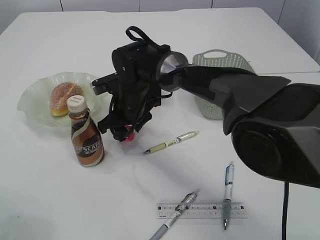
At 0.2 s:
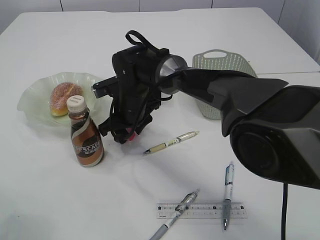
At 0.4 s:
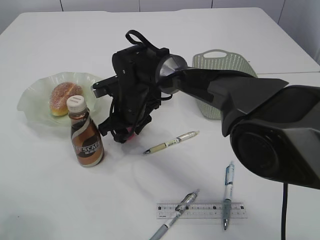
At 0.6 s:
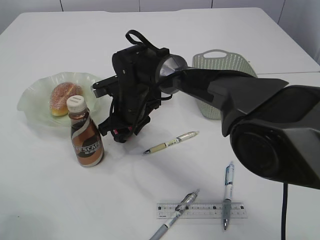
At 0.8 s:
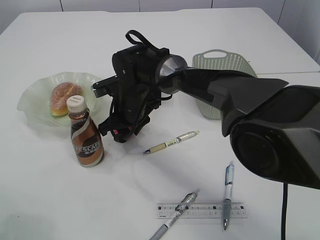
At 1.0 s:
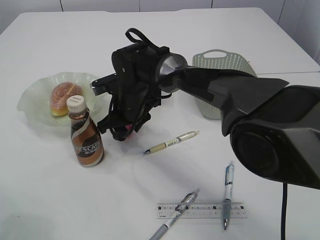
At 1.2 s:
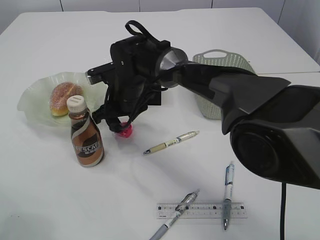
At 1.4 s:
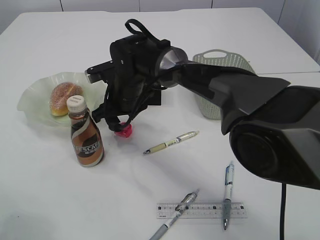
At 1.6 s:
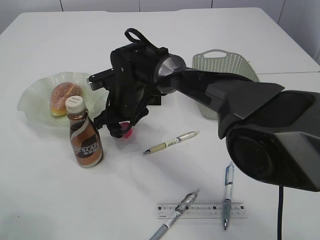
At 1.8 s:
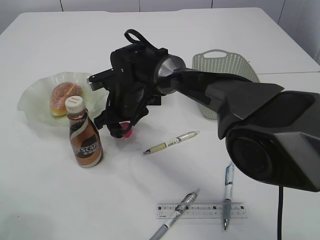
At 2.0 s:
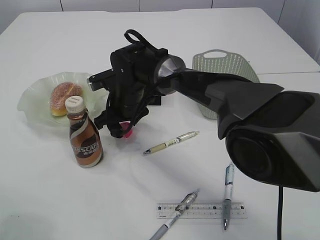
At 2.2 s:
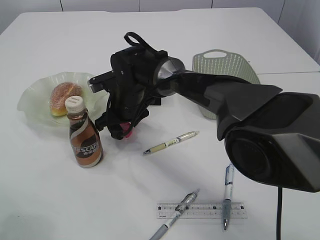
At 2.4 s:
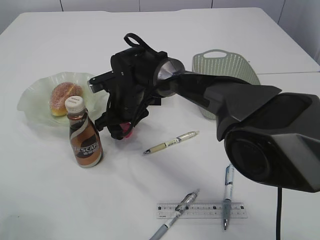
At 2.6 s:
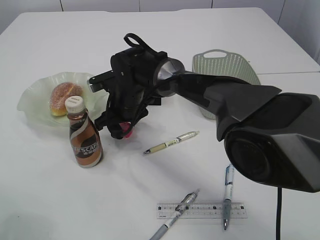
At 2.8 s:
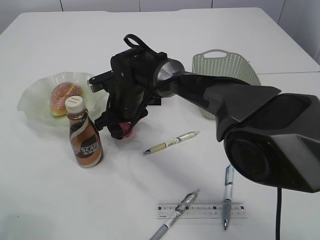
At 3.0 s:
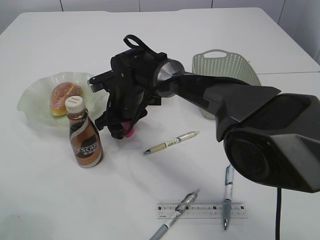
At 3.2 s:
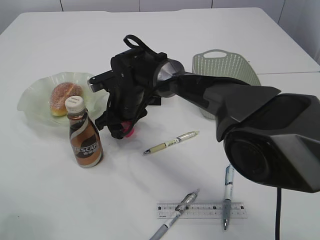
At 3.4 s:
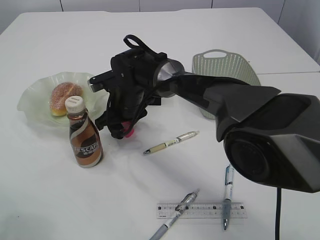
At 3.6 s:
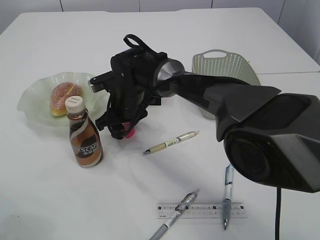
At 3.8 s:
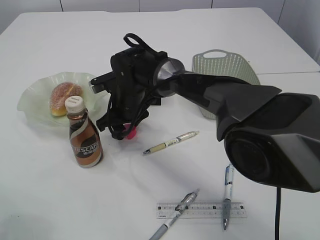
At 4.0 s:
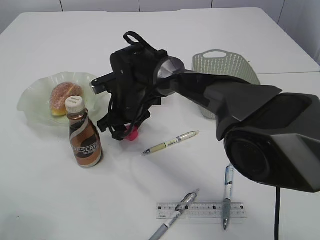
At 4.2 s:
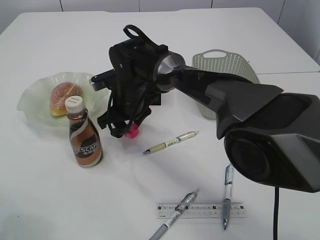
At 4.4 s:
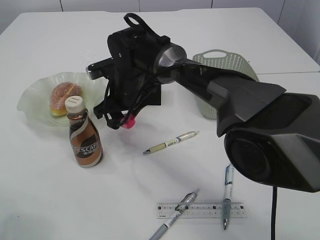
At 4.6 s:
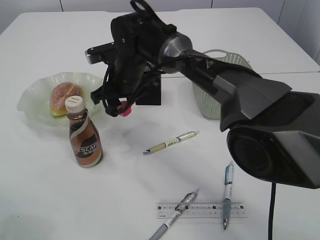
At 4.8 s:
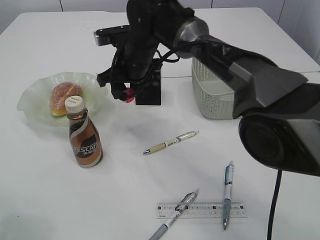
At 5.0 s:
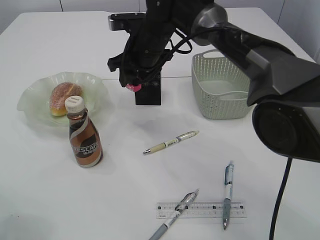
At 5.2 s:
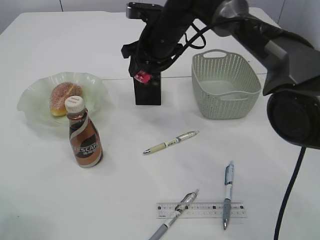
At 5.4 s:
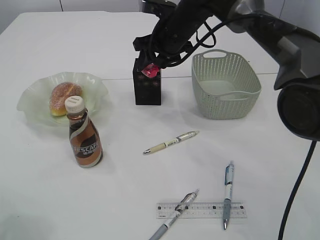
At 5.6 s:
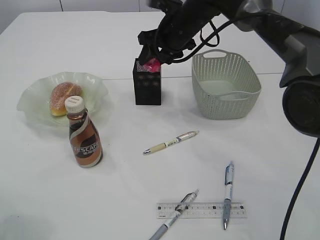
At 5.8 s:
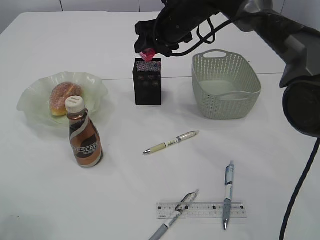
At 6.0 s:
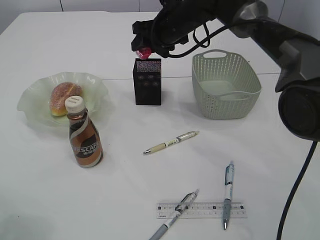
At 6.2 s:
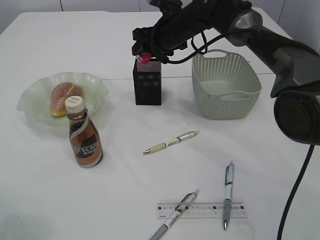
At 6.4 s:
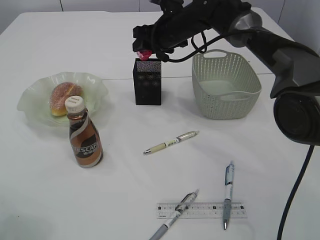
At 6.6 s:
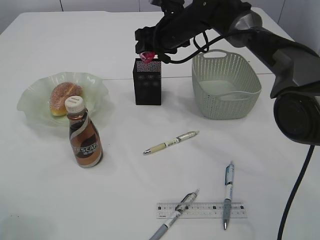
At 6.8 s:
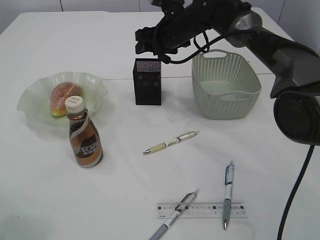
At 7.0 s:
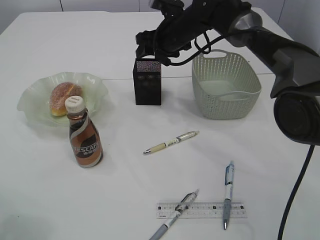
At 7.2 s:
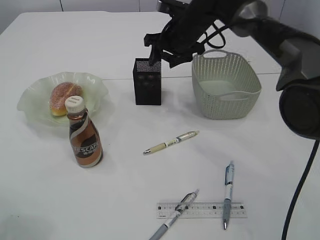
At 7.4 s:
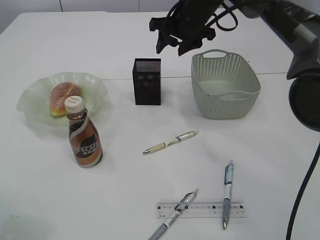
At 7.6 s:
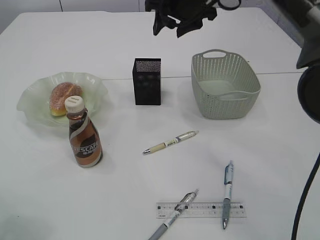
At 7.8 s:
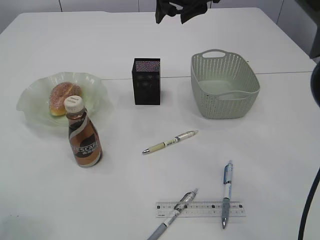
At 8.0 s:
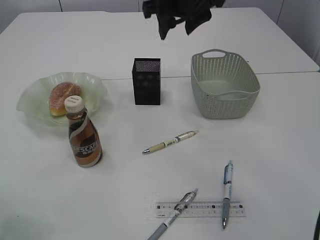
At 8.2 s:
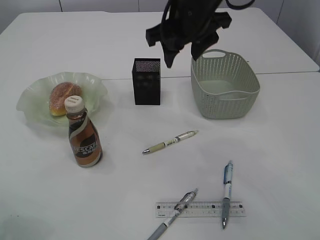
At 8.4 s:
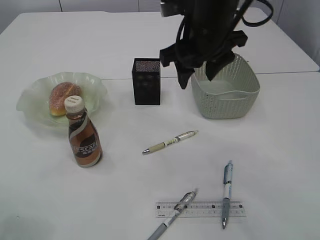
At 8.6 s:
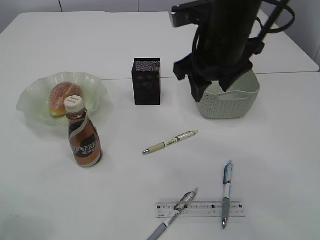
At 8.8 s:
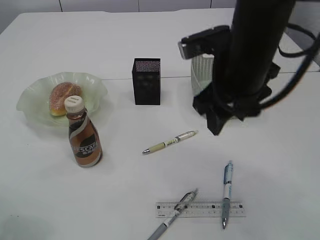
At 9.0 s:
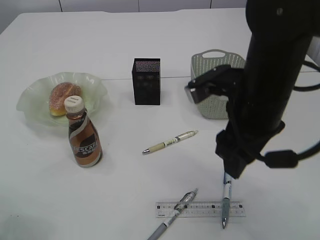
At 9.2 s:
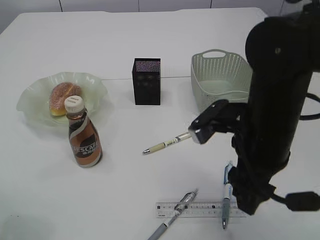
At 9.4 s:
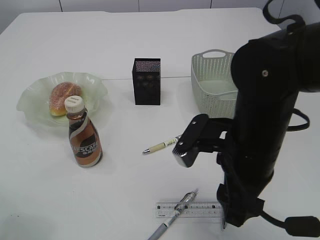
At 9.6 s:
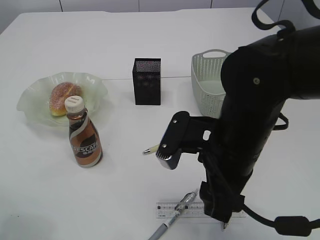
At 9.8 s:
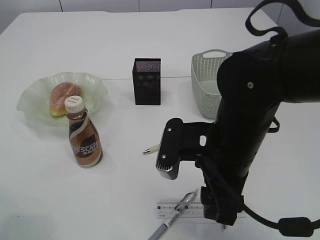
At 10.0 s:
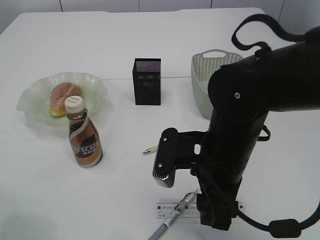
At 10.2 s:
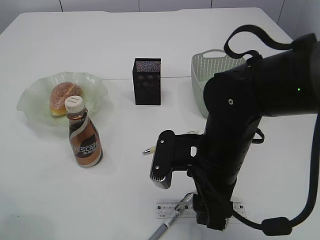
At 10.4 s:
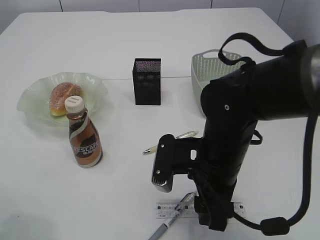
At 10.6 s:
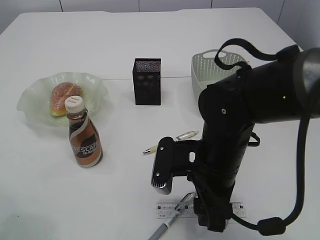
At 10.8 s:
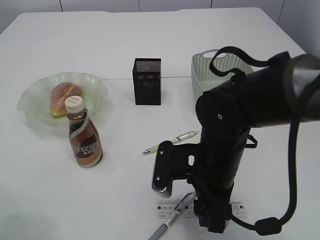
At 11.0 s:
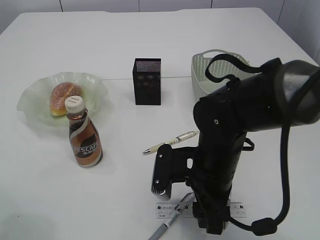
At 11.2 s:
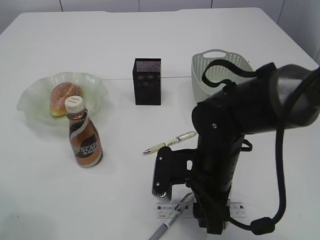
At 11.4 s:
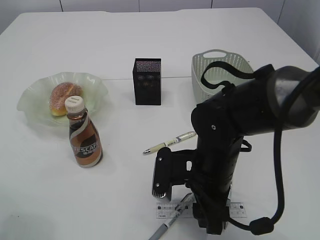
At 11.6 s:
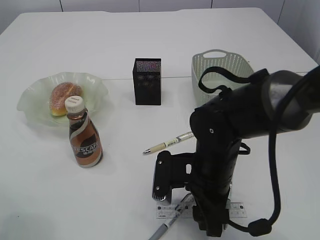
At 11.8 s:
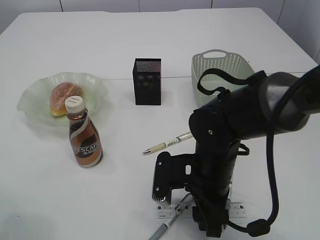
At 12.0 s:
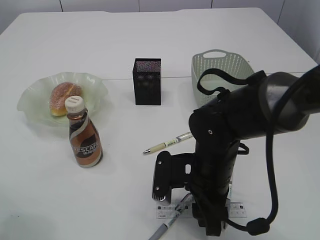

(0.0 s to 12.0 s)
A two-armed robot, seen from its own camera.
Step, 0.0 s - 4.6 s: Pick up the red pencil sharpener.
Step, 4.8 s - 7.2 s: Place the red pencil sharpener into the pen holder.
0.0 s - 1.6 s: The grippers move only a little.
1.6 s - 3.0 s: Both grippers stay about where they are.
3.0 s - 4.4 s: The grippers move only a little.
4.4 s - 6.0 s: The right gripper moves to the right, upward and forward, approximately 15 cm.
6.0 s - 7.6 s: The right gripper moves upward, approximately 5 cm.
7.6 s - 9.0 s: The right gripper heads backward, covering approximately 20 cm.
9.0 s - 10.4 s: The right gripper shifts roughly 10 cm downward.
10.4 s - 12.0 s: There are only small adjustments of the grippers.

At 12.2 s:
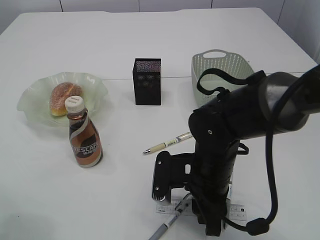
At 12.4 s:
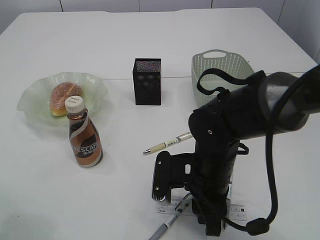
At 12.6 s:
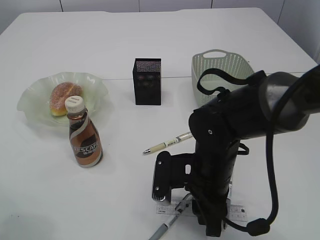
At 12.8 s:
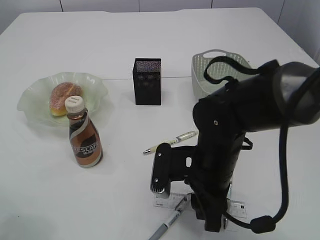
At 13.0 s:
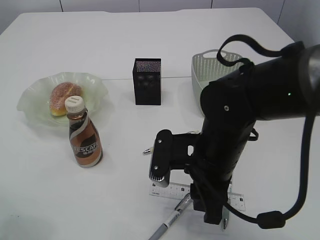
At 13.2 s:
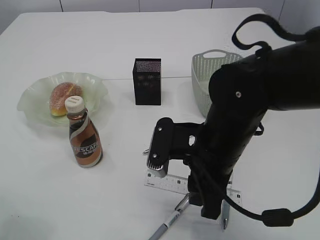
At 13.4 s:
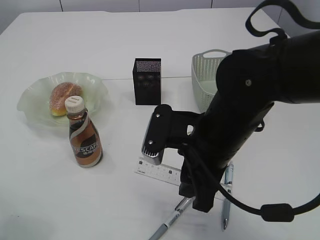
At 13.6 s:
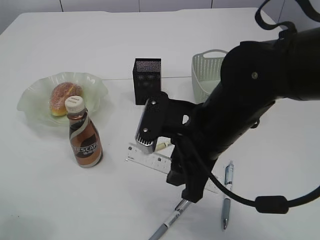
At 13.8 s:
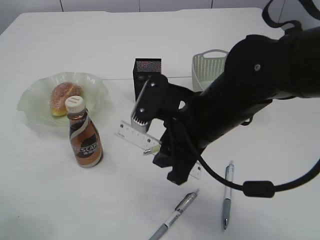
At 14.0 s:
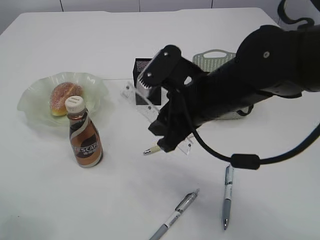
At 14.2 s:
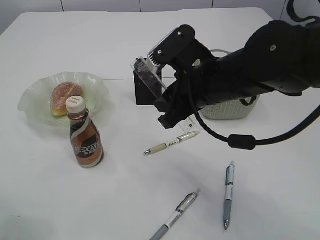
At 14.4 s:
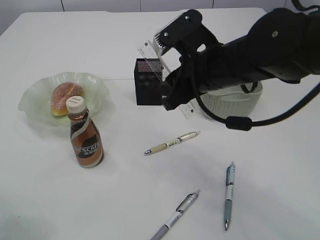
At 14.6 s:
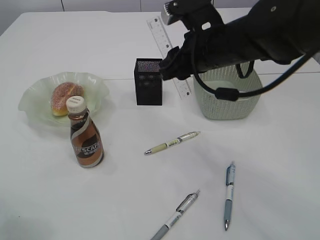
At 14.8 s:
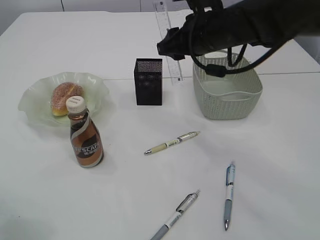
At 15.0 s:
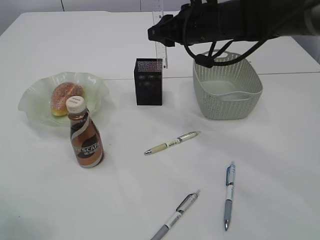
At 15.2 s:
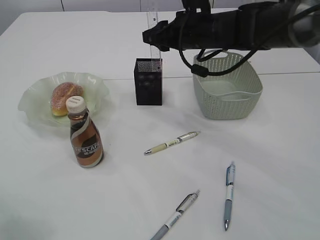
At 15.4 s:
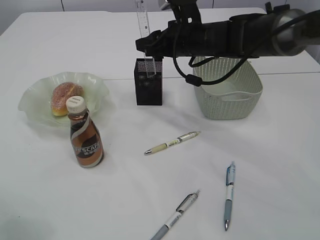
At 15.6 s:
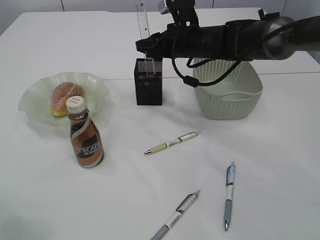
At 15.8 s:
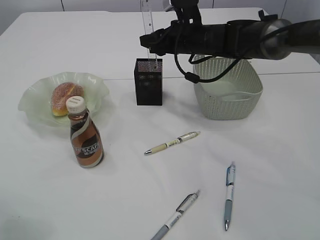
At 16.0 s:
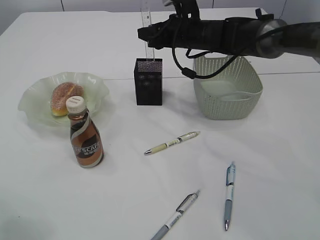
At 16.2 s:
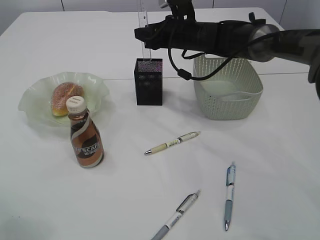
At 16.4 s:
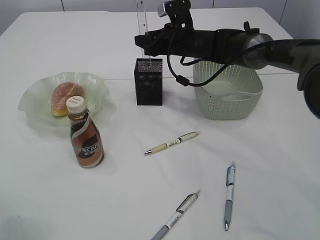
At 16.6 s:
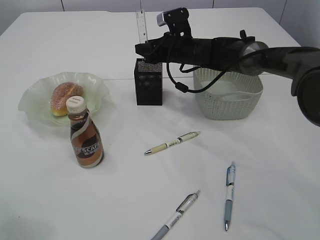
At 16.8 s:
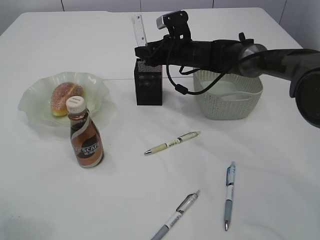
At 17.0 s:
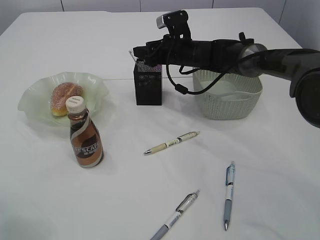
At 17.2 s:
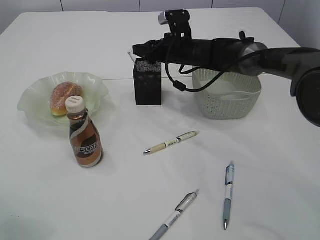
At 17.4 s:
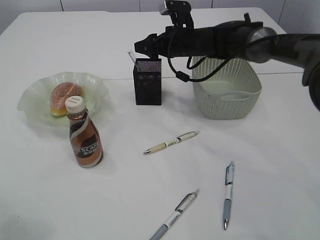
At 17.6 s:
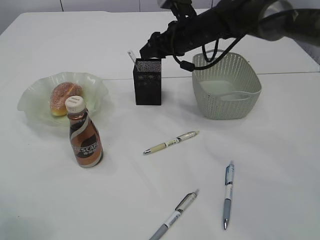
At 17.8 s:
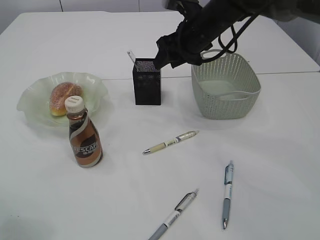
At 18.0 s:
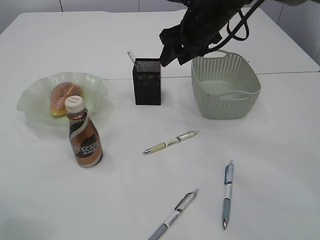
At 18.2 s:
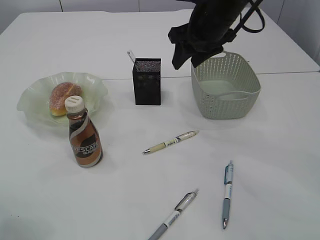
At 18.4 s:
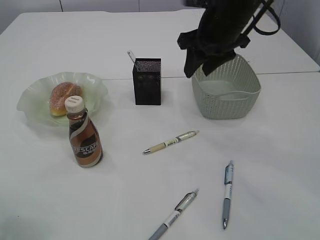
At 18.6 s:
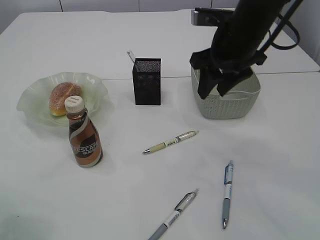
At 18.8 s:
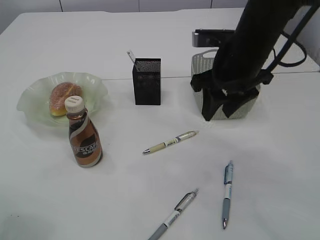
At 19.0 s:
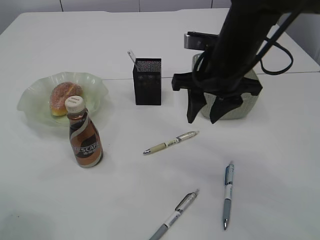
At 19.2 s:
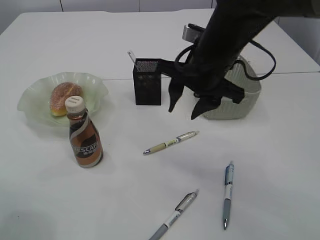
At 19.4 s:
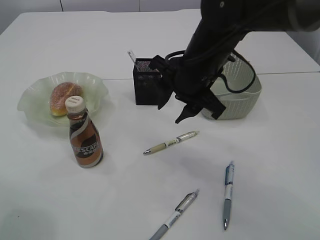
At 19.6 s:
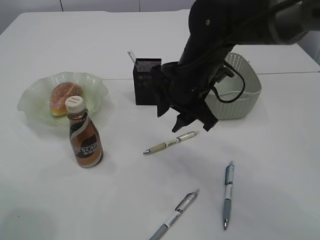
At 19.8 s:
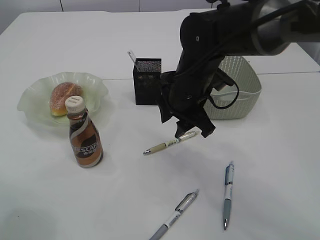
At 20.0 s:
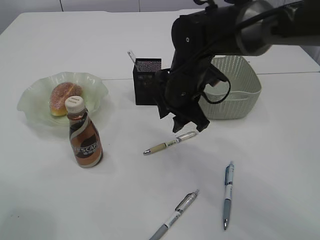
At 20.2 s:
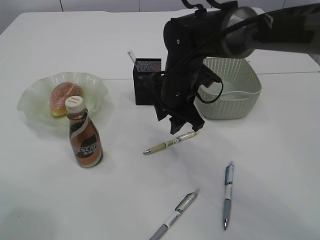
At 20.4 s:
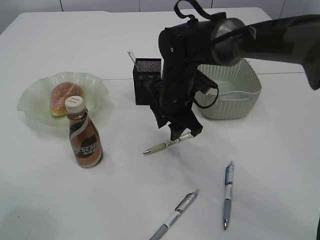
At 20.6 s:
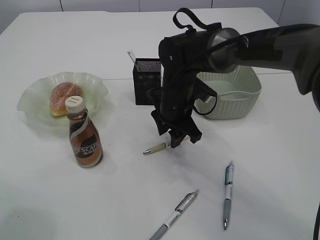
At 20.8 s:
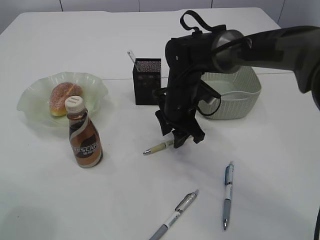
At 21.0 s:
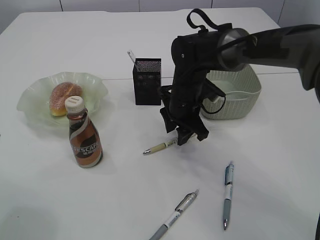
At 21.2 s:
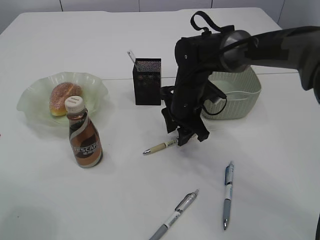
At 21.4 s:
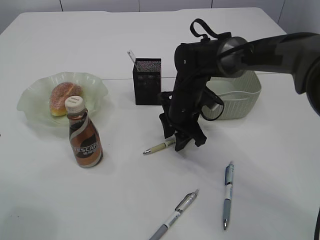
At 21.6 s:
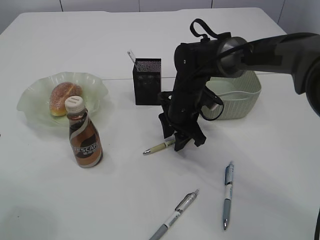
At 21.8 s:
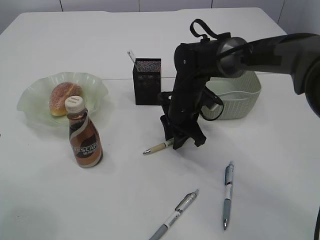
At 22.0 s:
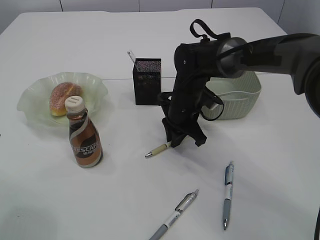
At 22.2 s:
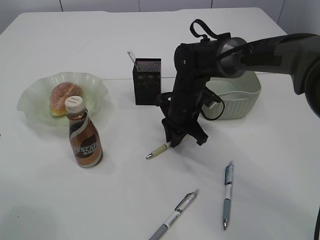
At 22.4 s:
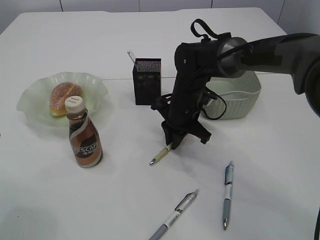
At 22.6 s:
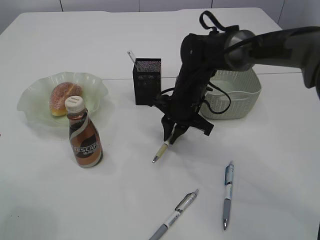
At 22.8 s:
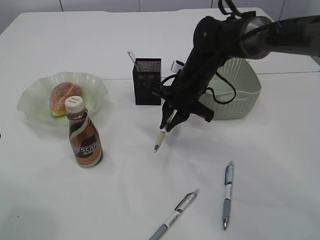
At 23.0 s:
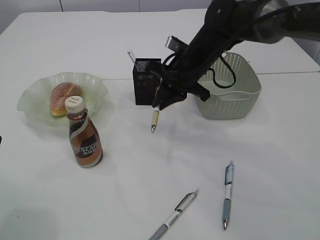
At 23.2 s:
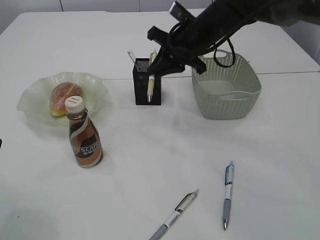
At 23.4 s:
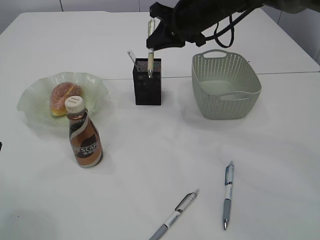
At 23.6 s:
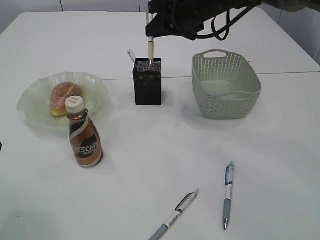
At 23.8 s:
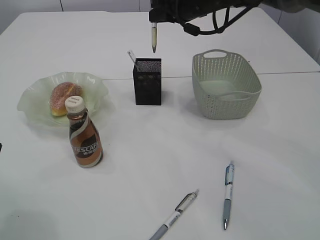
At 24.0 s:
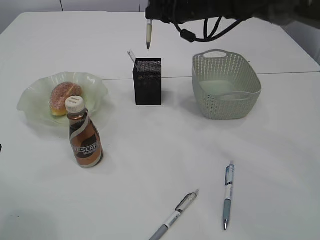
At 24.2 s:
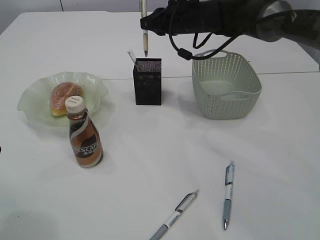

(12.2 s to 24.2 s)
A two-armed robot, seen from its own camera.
Step, 13.8 s - 17.6 s: Place the ruler into the pen holder.
Step, 17.8 s - 22.8 s: Pick up the pen with right arm.
12.2 s - 13.8 s: The right gripper moves upward, roughly 10 cm.
13.8 s - 15.2 s: The right gripper shifts about 20 cm forward.
15.2 s - 16.6 s: The right gripper travels forward and downward by about 10 cm.
16.6 s - 18.2 s: The right gripper goes roughly 15 cm upward and backward.
18.2 s - 19.8 s: The right gripper moves downward, backward and to the left, roughly 15 cm.
19.8 s - 21.2 s: The right gripper travels downward and forward by roughly 10 cm.
21.2 s - 22.6 s: The right gripper closes up.
22.6 s - 24.2 s: The right gripper travels upward and forward by roughly 15 cm.
